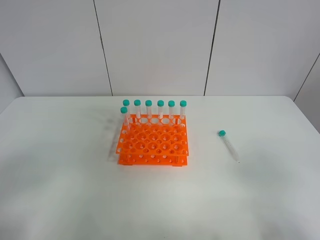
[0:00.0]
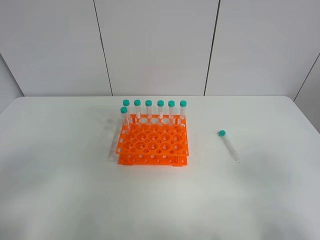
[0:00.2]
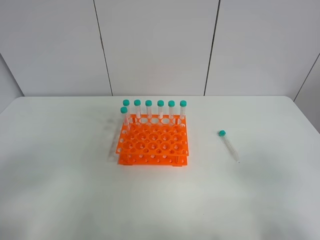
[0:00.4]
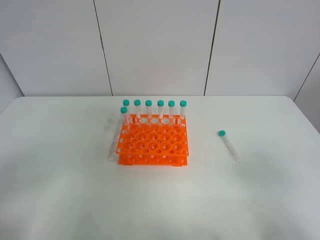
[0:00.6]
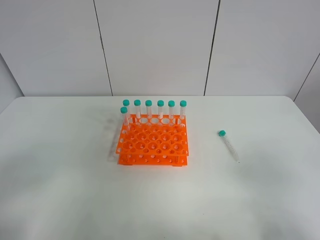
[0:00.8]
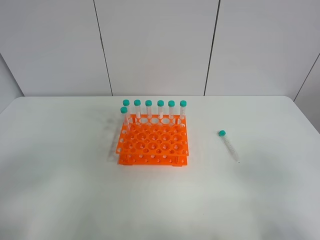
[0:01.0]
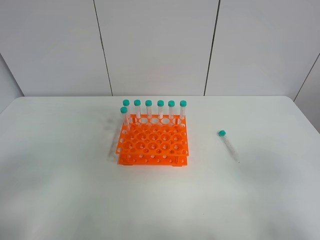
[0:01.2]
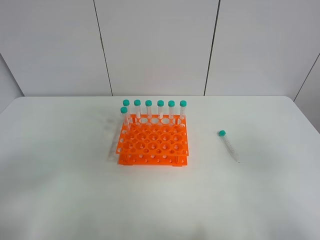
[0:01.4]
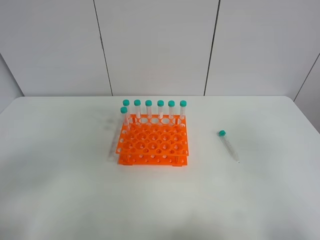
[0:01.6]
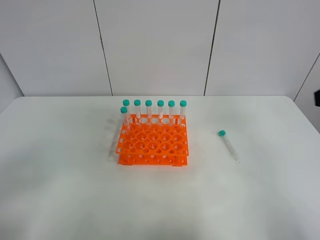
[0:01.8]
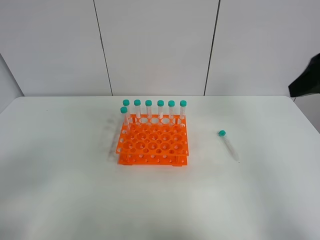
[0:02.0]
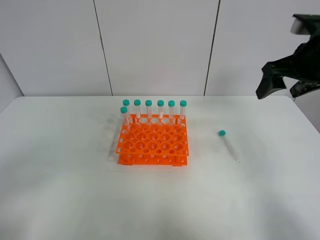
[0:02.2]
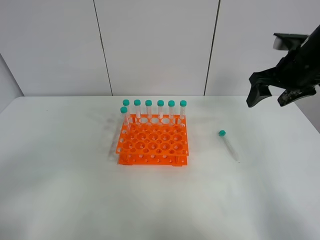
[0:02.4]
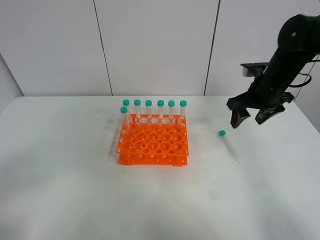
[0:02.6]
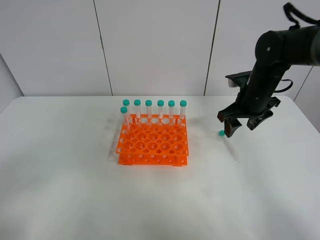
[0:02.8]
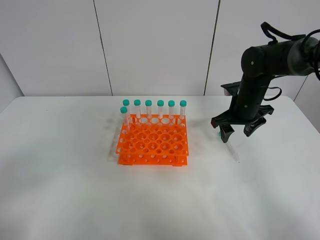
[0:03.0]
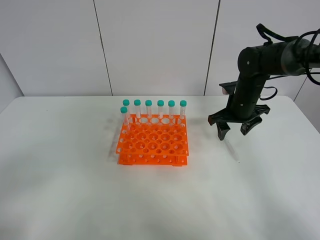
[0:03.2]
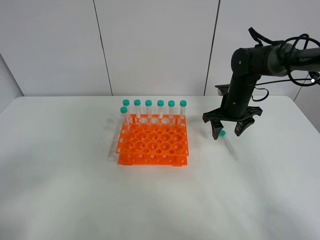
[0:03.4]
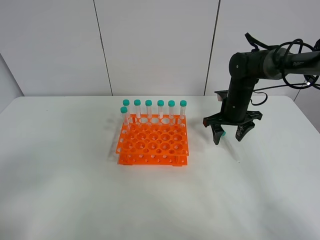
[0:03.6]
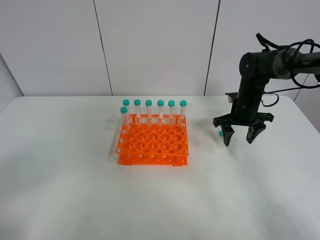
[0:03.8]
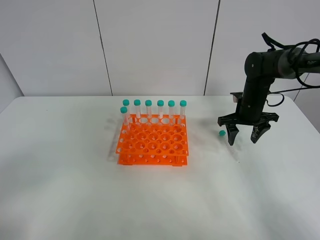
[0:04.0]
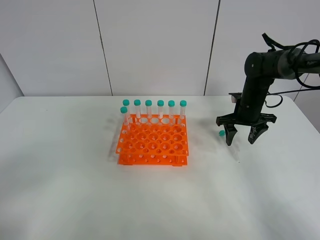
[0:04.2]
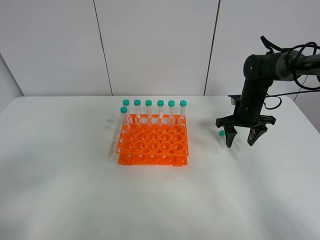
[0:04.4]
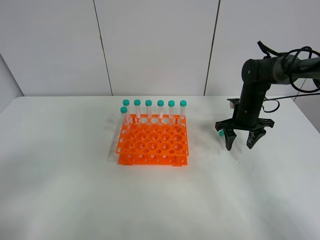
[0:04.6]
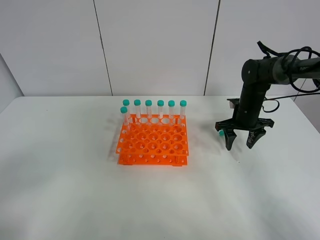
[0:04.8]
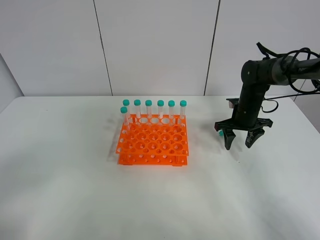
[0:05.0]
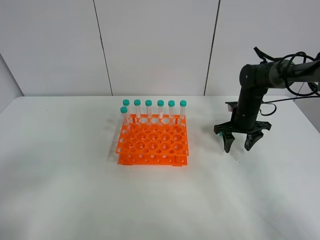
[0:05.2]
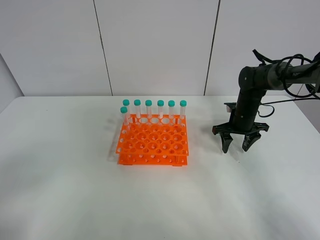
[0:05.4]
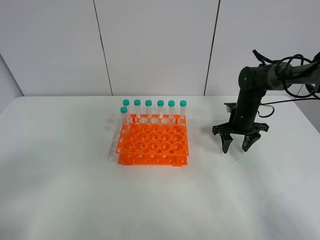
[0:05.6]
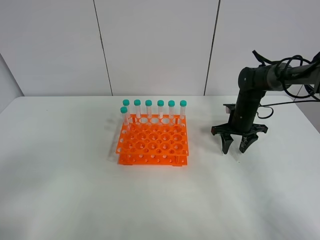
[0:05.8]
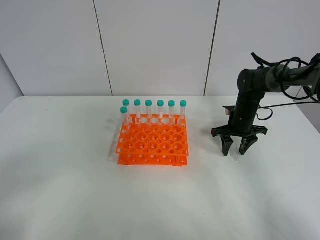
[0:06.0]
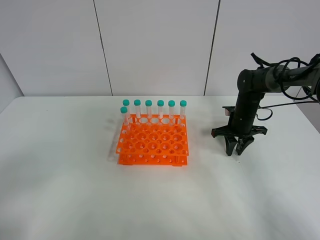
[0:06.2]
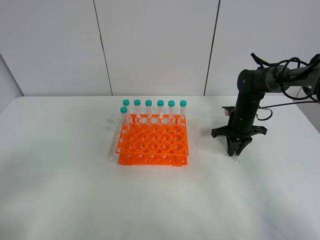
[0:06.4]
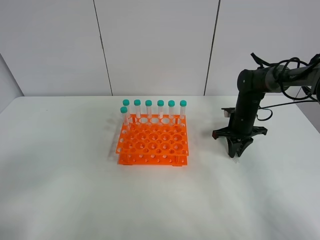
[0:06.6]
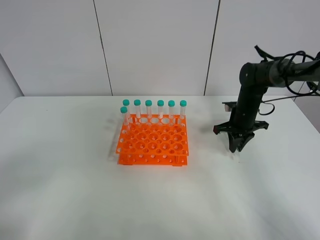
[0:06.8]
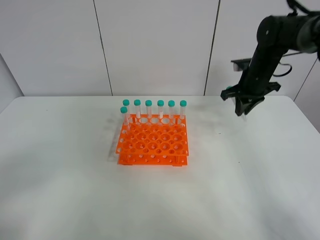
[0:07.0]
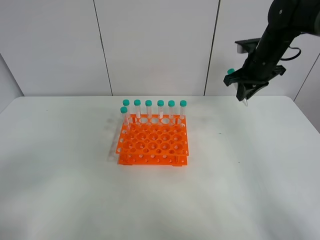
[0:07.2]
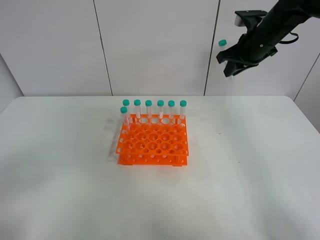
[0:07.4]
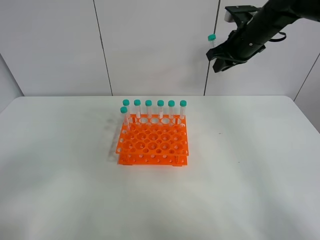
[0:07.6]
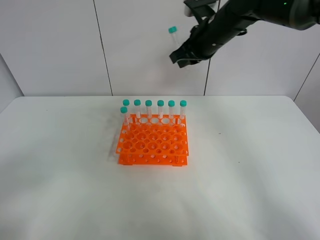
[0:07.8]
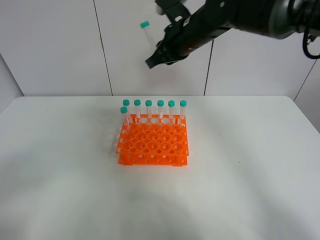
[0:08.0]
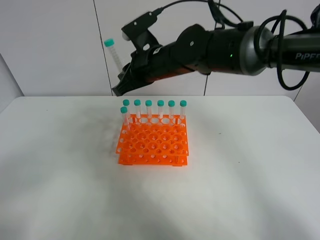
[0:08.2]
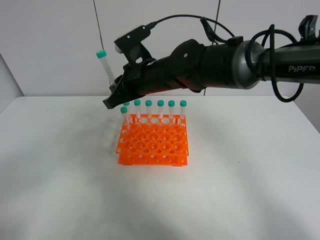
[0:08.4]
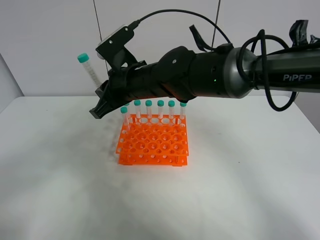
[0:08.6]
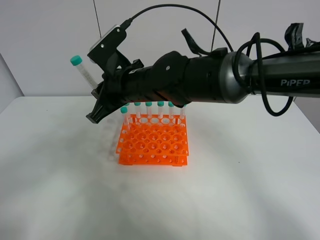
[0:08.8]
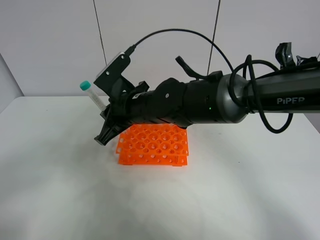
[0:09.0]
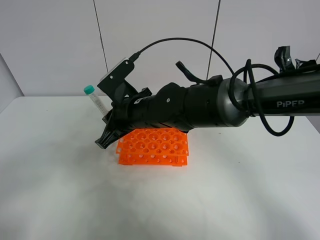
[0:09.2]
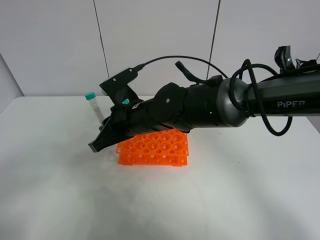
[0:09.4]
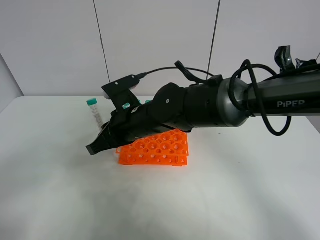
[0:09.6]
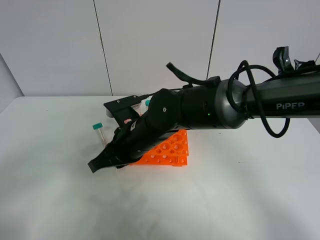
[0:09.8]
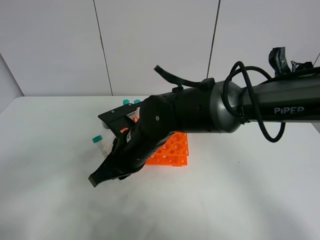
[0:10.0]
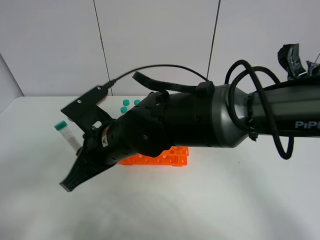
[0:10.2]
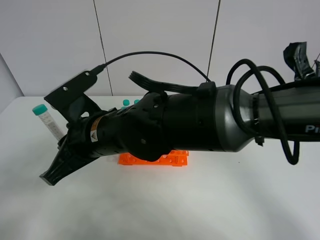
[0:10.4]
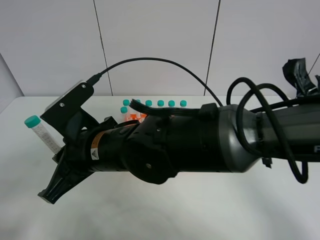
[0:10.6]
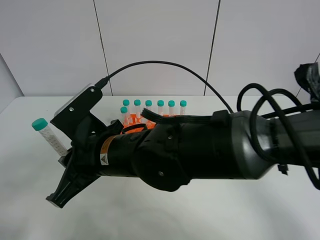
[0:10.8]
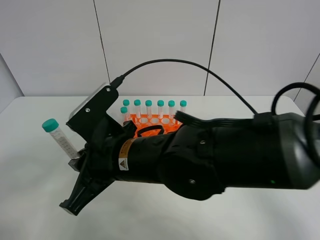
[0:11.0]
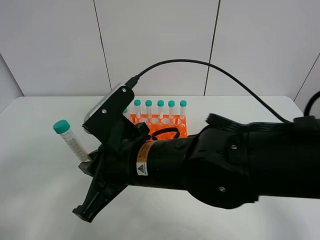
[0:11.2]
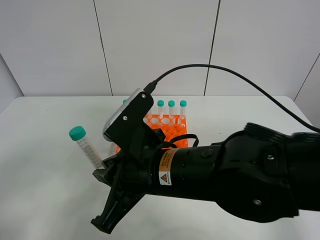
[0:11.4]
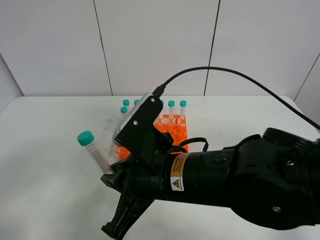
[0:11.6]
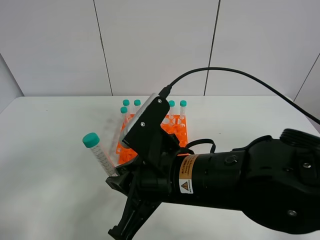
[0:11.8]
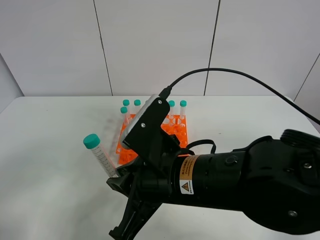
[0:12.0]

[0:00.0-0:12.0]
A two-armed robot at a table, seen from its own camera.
Task of the whole recording: Put the test tube on the table back onto the test tube rack.
Step, 0:00.0 to 0:06.4: Pick up the test tube with the right gripper.
0:01.6 to 0:03.0: The right gripper heads forward and downward, covering approximately 35 cm.
0:03.0 to 0:04.4: The right gripper shifts by about 5 cm.
0:04.4 to 0:06.0: There are only small adjustments of the grippers.
0:06.0 to 0:07.6: The right gripper heads upward, covering some 20 cm, and closes up.
0:07.6 to 0:09.0: The right gripper is displaced to the left, backward and downward by approximately 30 cm.
0:09.0 to 0:10.4: The right gripper goes some 10 cm backward and to the left.
0:10.4 to 0:12.0: The right gripper shifts some 15 cm to the right and backward.

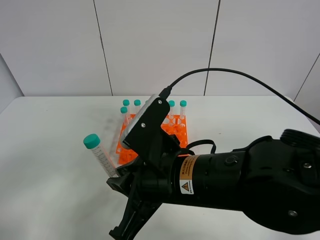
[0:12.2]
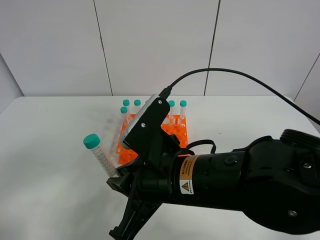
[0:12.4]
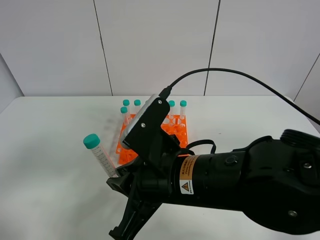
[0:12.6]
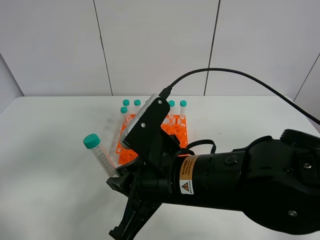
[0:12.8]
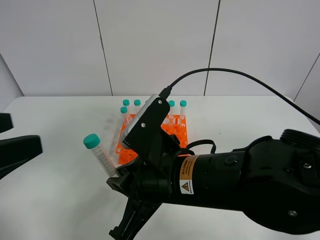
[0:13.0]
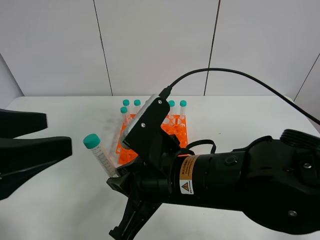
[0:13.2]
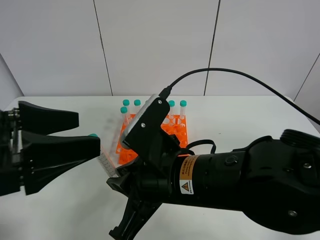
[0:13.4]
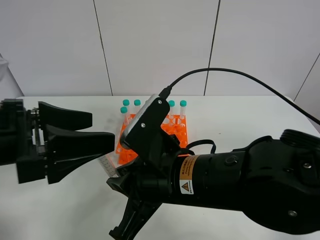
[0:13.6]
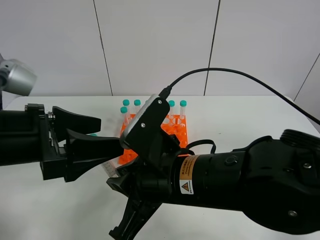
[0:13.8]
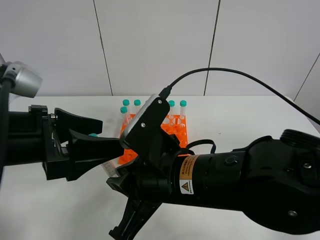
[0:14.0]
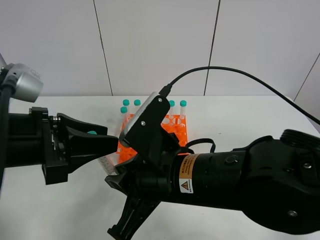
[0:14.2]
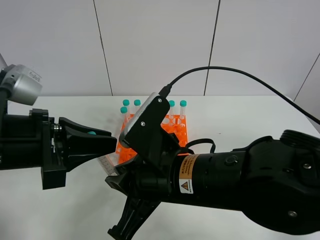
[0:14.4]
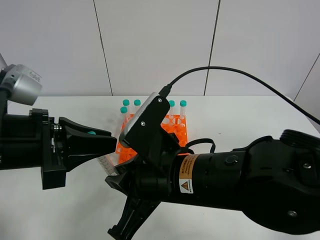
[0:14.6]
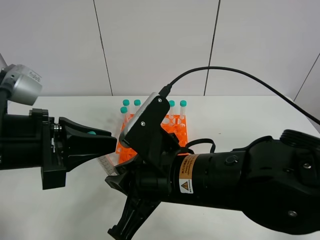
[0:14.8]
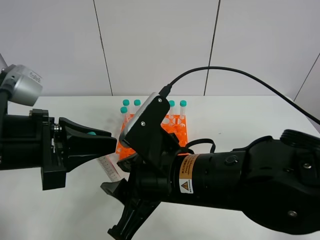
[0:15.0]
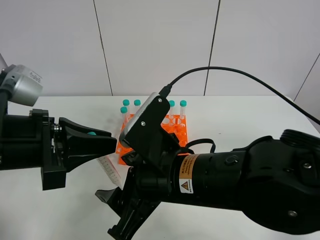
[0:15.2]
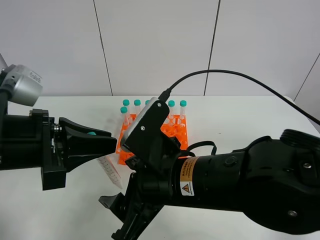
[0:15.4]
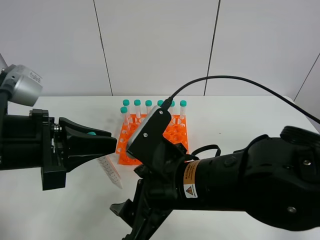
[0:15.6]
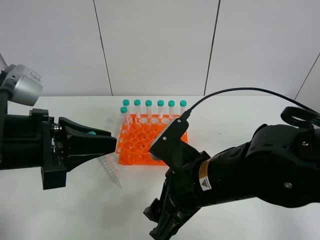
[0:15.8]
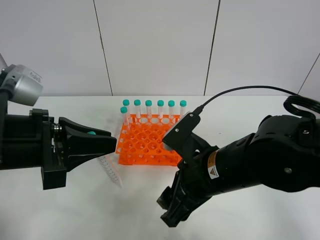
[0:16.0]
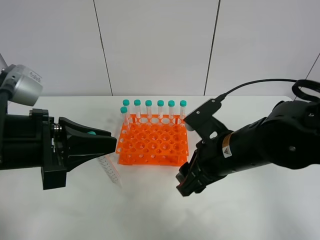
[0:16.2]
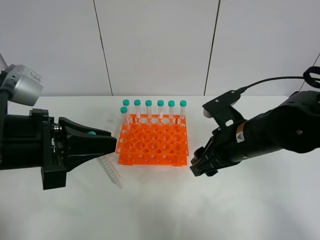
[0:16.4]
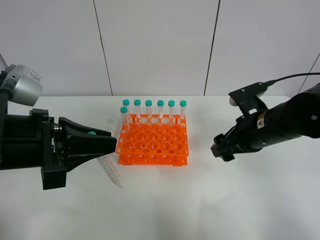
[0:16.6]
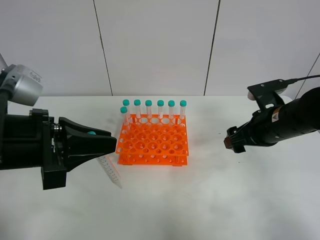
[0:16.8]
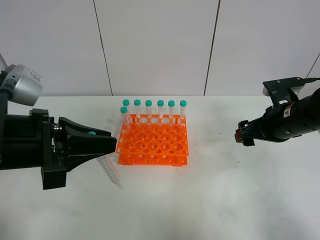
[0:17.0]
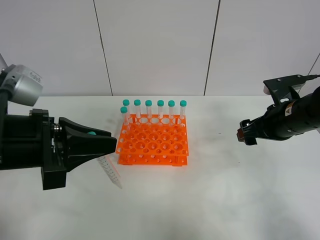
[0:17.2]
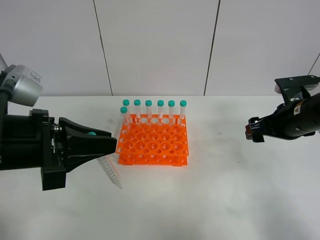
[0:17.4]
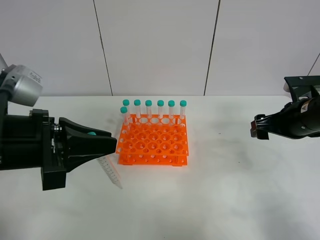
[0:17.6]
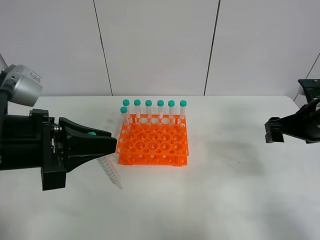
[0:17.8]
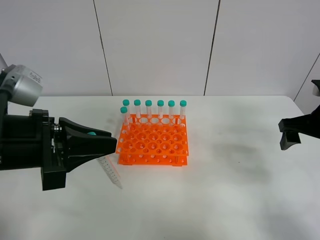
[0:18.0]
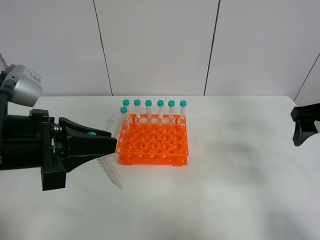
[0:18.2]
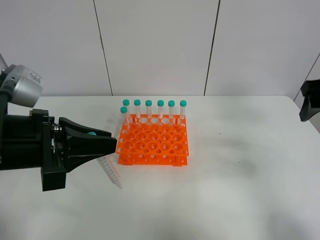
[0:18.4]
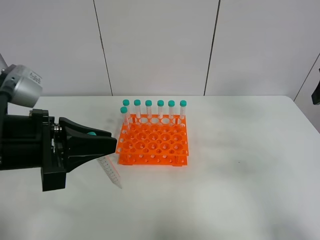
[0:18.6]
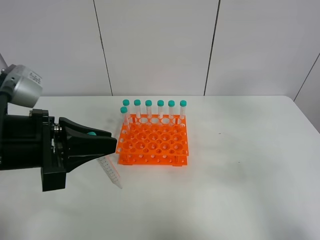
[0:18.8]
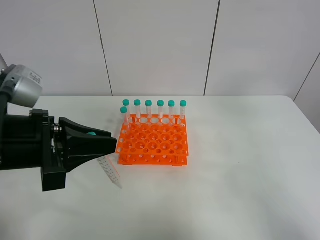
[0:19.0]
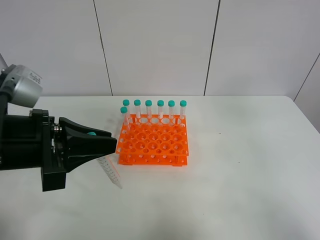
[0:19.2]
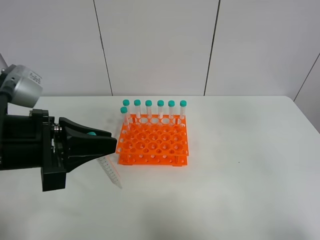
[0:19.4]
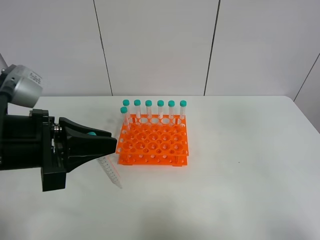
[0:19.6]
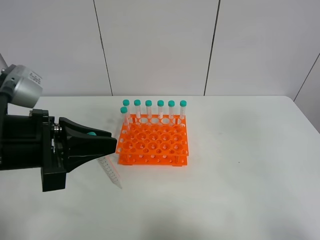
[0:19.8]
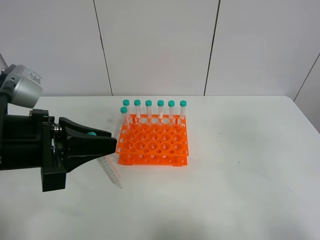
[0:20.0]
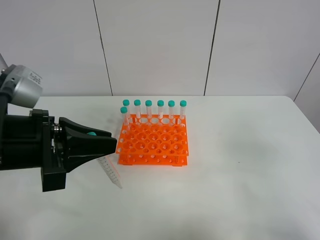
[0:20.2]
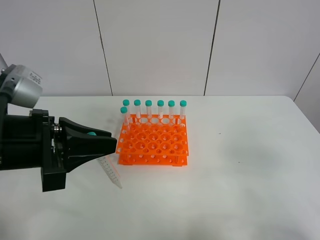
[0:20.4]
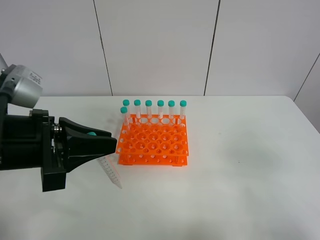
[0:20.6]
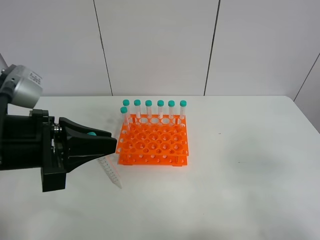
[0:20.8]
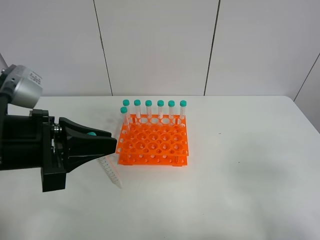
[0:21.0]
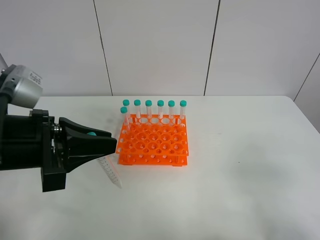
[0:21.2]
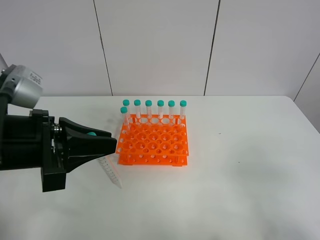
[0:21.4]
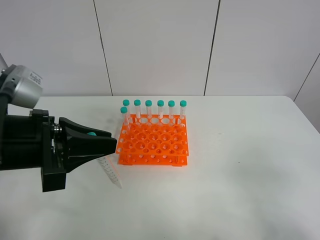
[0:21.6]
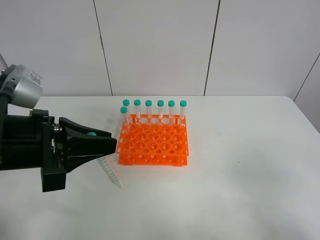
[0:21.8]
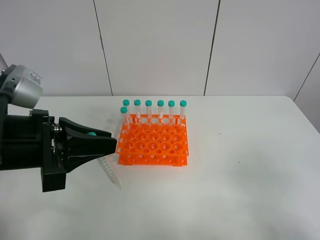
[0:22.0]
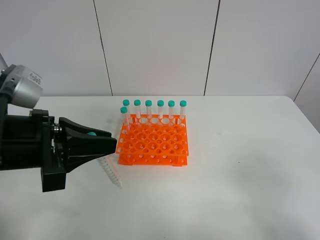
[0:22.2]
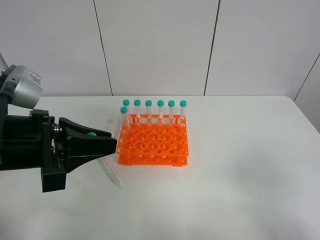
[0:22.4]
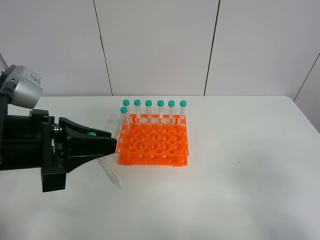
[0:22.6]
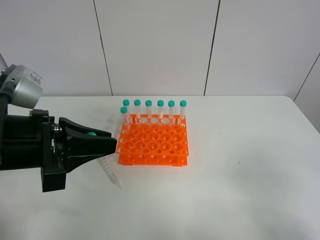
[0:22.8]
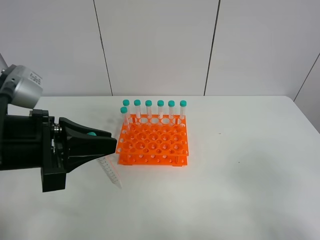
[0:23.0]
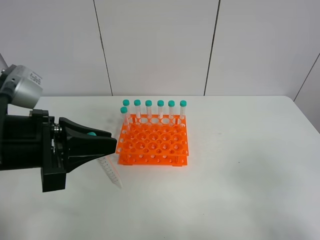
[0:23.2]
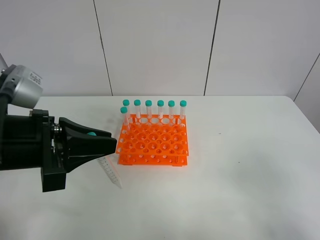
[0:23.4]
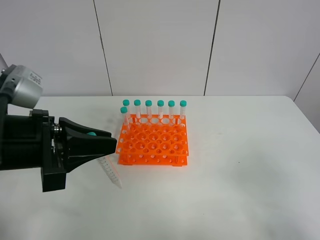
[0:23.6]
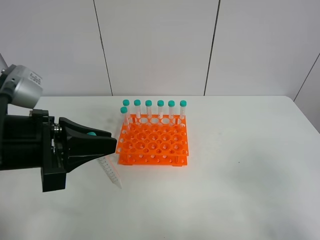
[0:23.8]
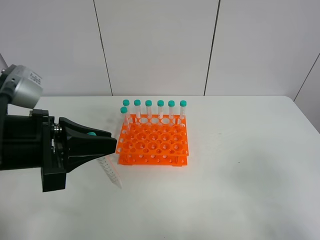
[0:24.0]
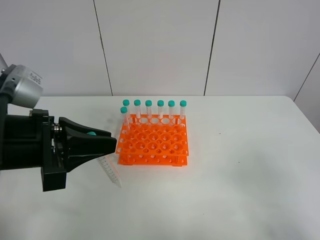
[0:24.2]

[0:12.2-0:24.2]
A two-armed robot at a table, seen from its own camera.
Task of the whole recording: Put the test tube on the table back onto the test tube rack.
Step, 0:12.2 to 0:15.2: Move the test tube from the right gripper to the left gripper.
0:12.2 to 0:13.8: The left gripper goes some 20 cm forward and to the right.
0:13.8 to 0:15.2: The right gripper opens up. The left gripper closes up.
0:15.2 to 0:16.6: The right gripper heads to the right and forward, covering about 20 cm.
0:16.6 to 0:18.2: The right gripper goes about 15 cm to the right and upward.
0:18.2 to 0:19.8: The right gripper travels backward and upward by about 25 cm.
0:19.8 to 0:21.2: The right gripper is displaced downward by approximately 15 cm.
